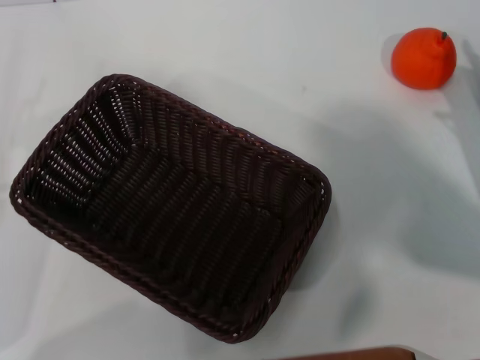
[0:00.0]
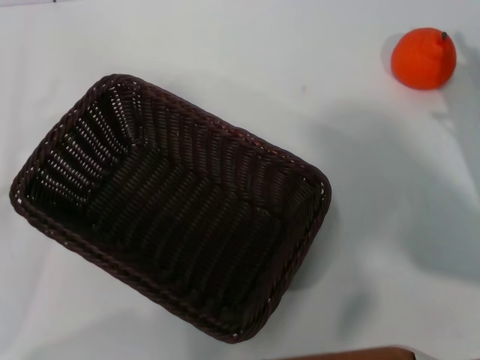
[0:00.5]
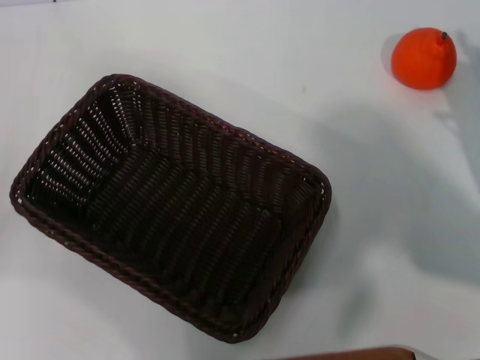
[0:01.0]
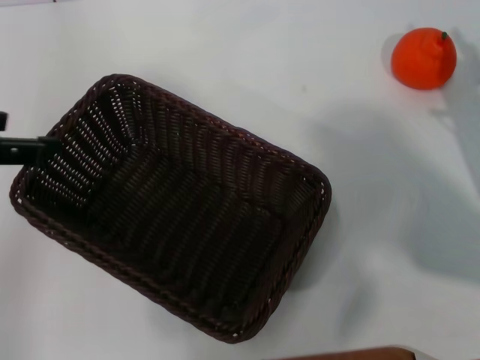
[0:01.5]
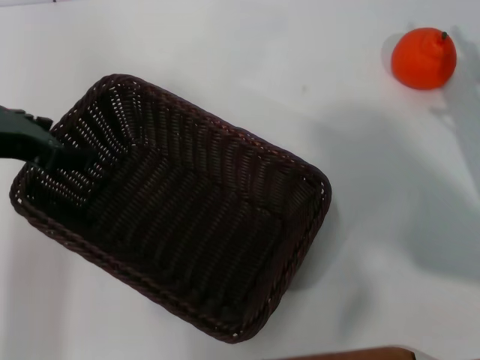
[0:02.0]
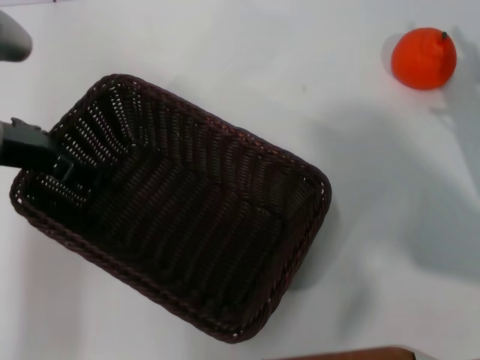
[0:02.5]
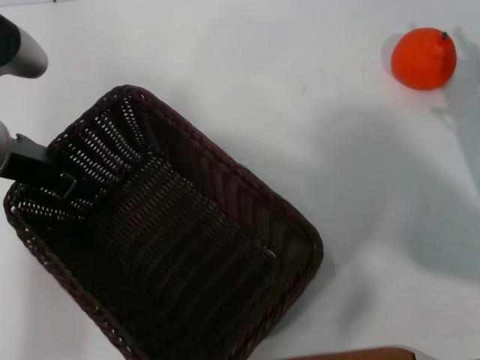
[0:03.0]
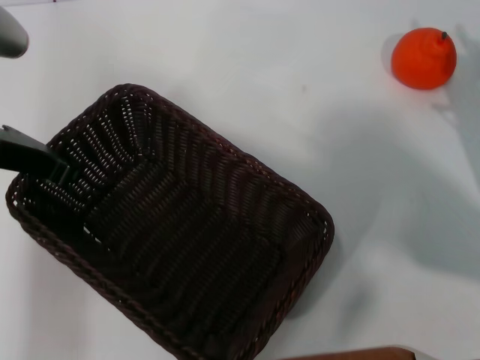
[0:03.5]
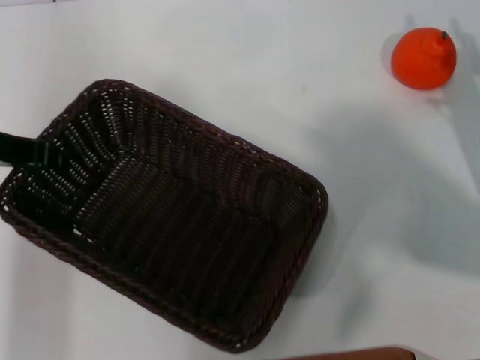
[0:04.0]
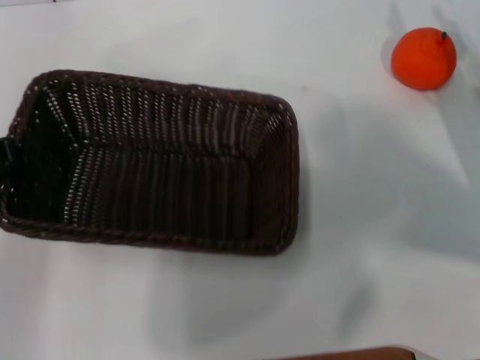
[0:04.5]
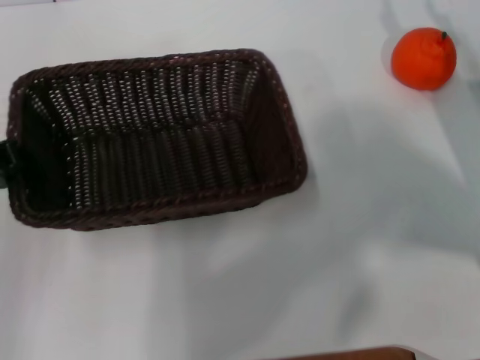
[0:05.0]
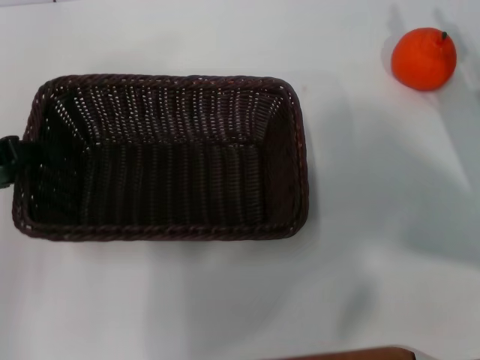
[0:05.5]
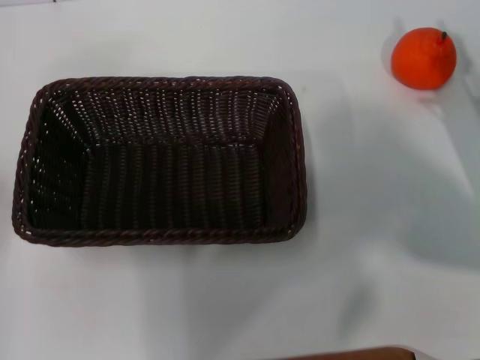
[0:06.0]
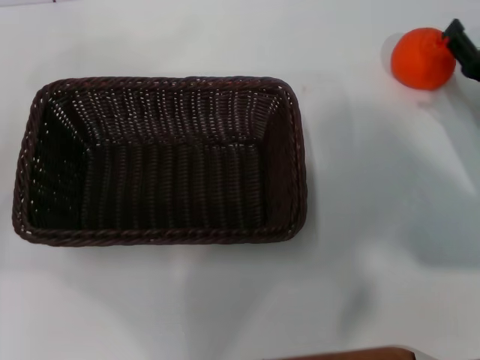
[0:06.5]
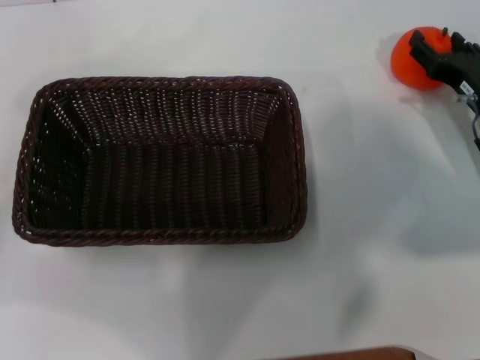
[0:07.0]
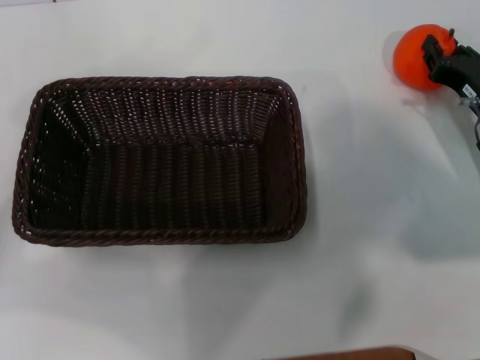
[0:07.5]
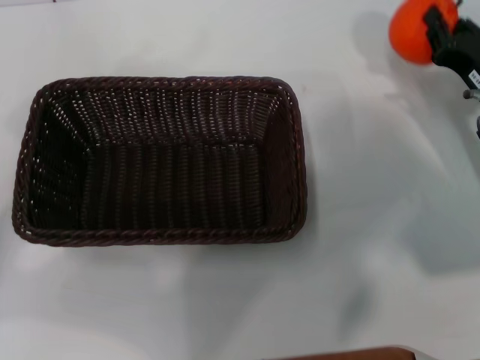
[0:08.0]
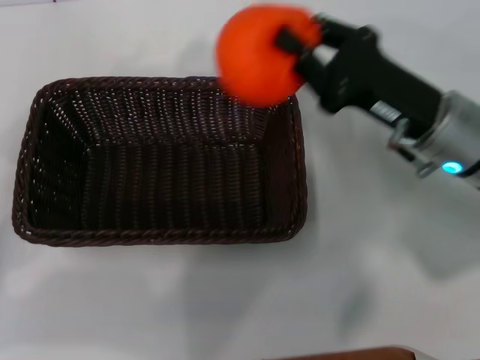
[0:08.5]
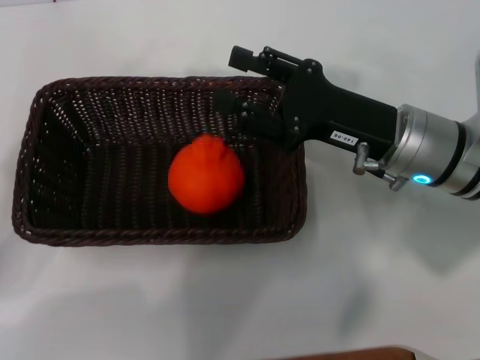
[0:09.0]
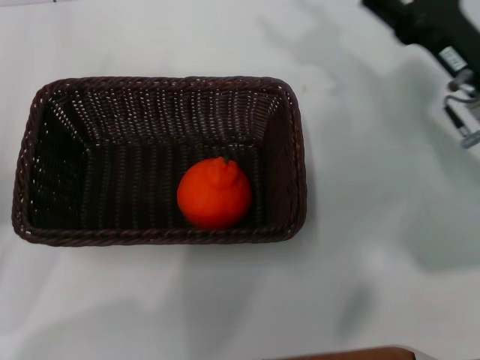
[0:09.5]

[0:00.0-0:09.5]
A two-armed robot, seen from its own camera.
Task of the whole recording: the left gripper pick up the black basket and place it horizontally in the middle of the table, the right gripper pick up the orange and place it into the black basket.
Step, 0:00.0 to 0:03.5: Pick up the dark basket with the left gripper.
Step, 0:04.0 to 0:05.5: Place the dark basket in the center of view with the left gripper.
Step, 0:06.0 to 0:07.5: Pick up the orange with the right gripper.
Step, 0:08.0 to 0:08.5: Place the orange into the dark basket with the right gripper.
0:00.0 to 0:02.0: The left gripper goes approximately 20 cm upward, forward and to the right.
0:02.0 to 0:04.0: The left gripper closes its fingers.
0:04.0 to 0:05.5: The left gripper changes place by about 5 cm.
0:05.5 to 0:07.5: The left gripper goes approximately 5 cm to the left, and opens. Meanwhile the right gripper ends up roughly 5 cm from where it was.
0:07.5 to 0:09.5: The left gripper heads downward, covering some 5 cm. The right gripper shifts approximately 5 cm upward, and opens up.
